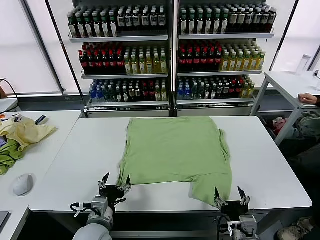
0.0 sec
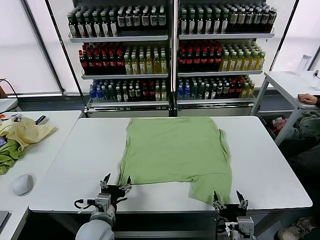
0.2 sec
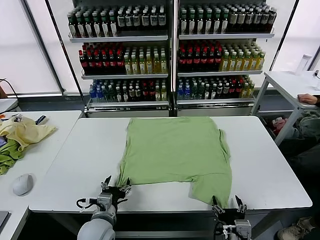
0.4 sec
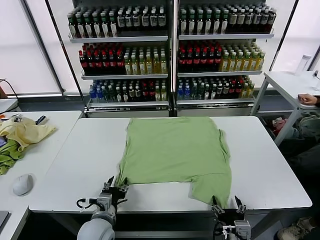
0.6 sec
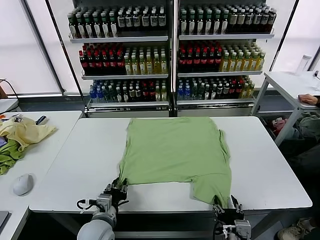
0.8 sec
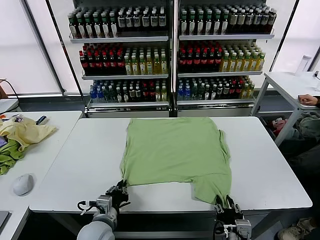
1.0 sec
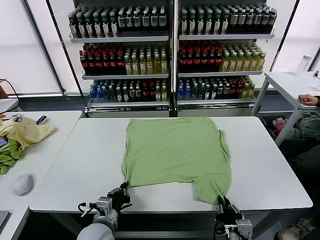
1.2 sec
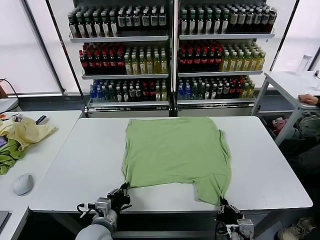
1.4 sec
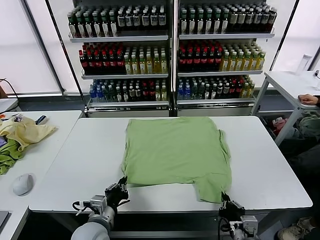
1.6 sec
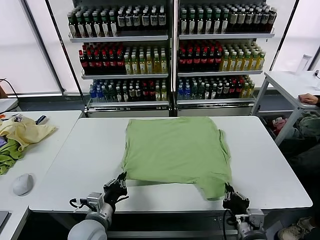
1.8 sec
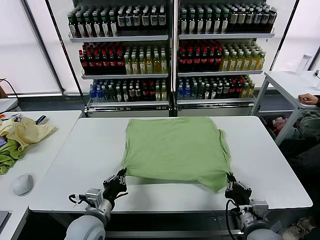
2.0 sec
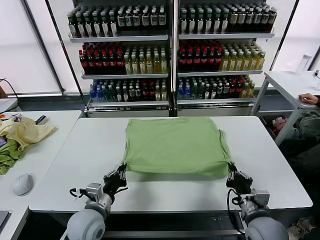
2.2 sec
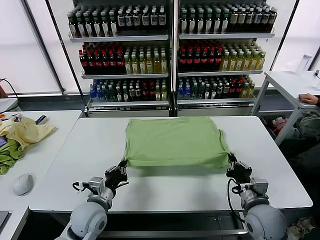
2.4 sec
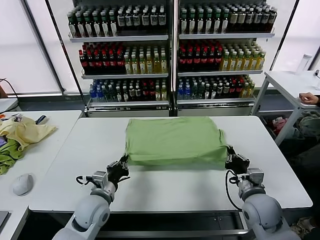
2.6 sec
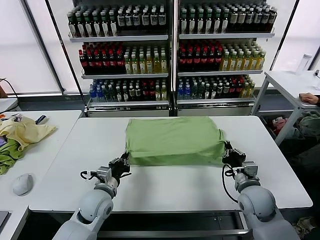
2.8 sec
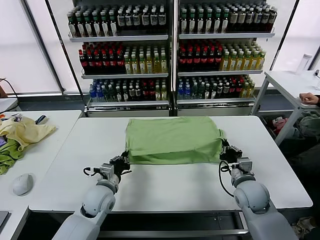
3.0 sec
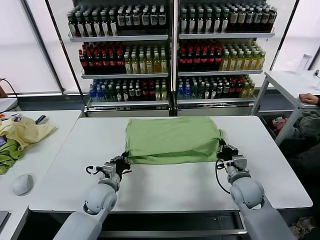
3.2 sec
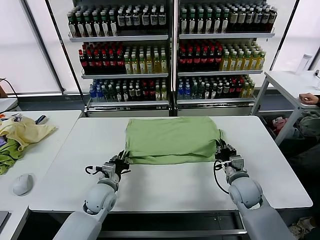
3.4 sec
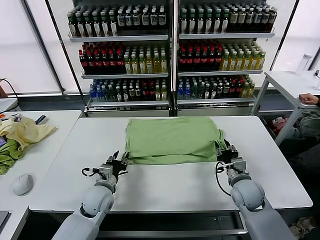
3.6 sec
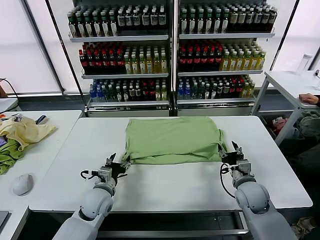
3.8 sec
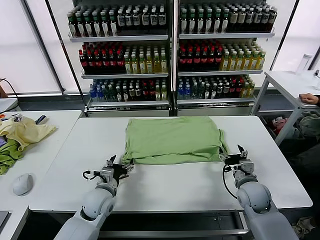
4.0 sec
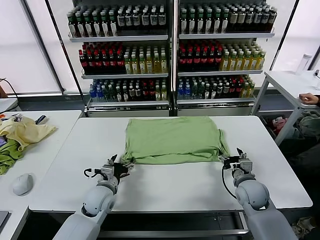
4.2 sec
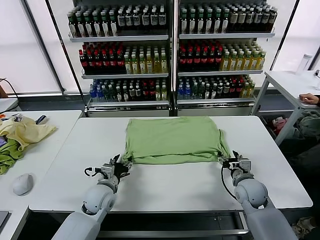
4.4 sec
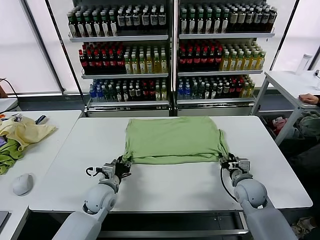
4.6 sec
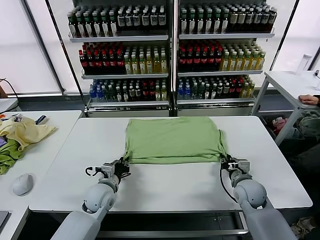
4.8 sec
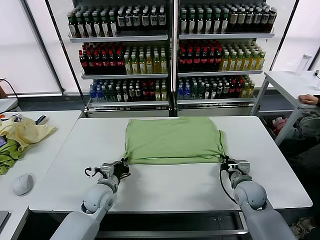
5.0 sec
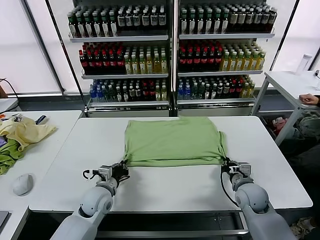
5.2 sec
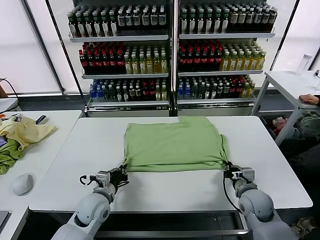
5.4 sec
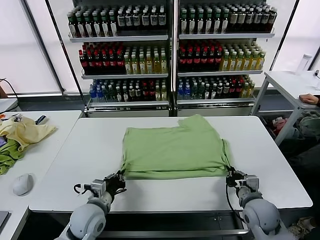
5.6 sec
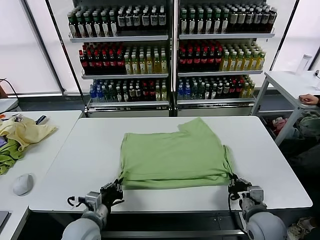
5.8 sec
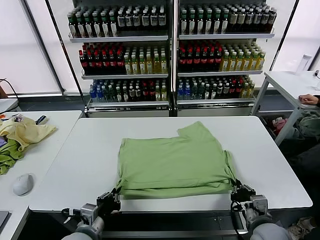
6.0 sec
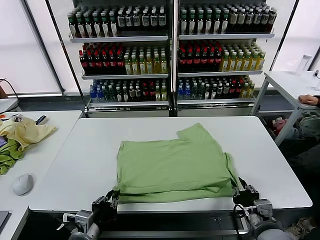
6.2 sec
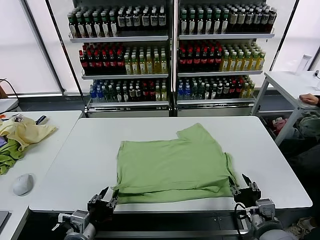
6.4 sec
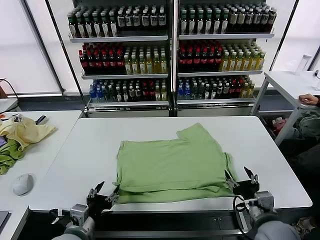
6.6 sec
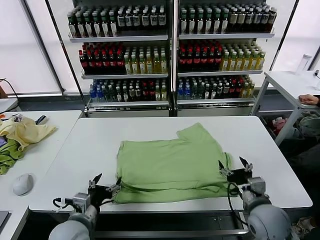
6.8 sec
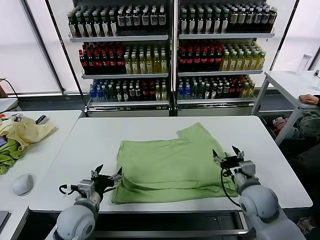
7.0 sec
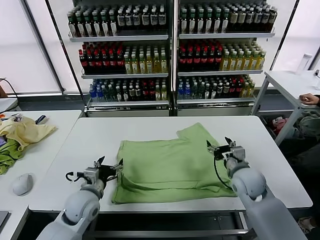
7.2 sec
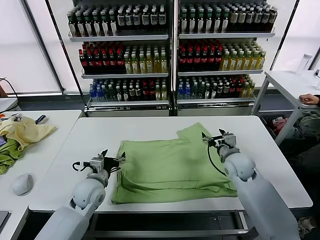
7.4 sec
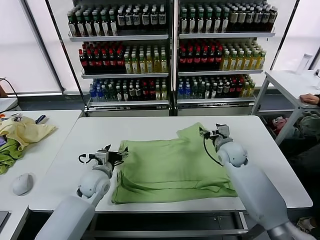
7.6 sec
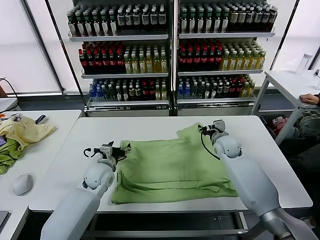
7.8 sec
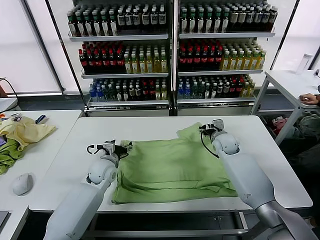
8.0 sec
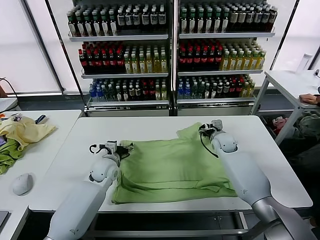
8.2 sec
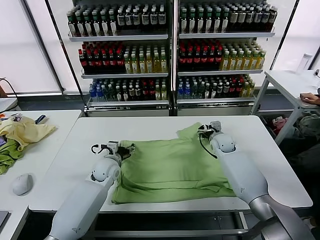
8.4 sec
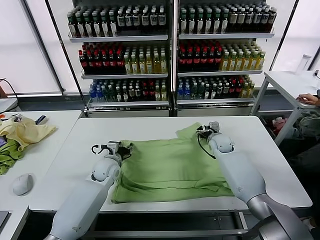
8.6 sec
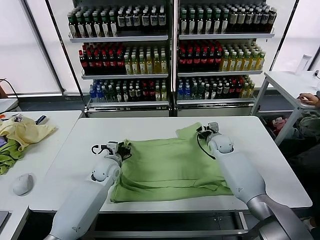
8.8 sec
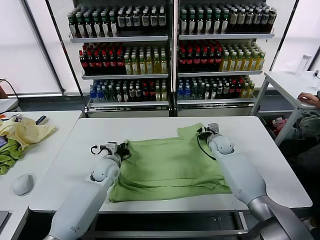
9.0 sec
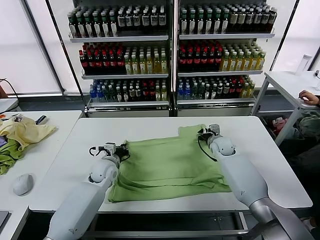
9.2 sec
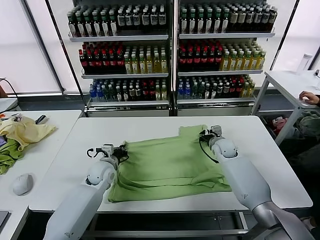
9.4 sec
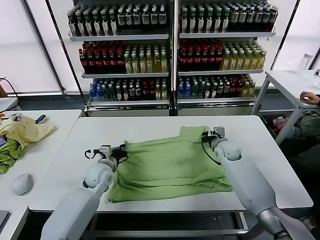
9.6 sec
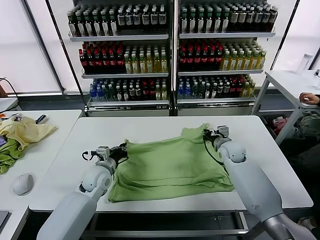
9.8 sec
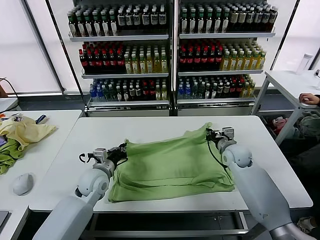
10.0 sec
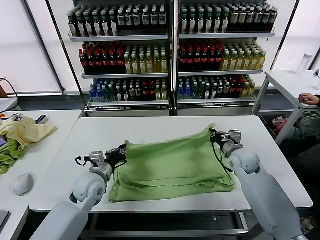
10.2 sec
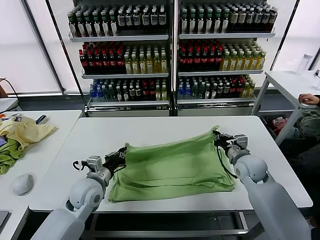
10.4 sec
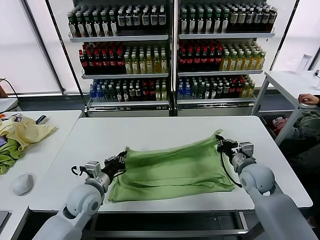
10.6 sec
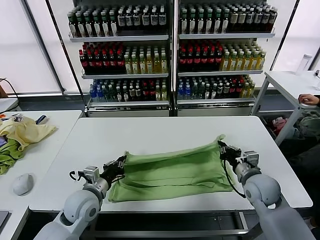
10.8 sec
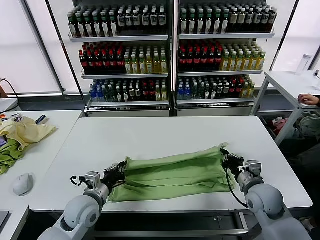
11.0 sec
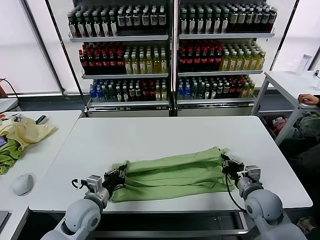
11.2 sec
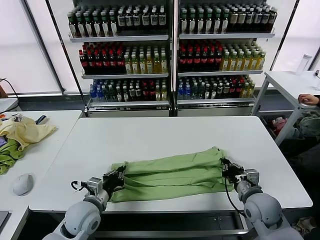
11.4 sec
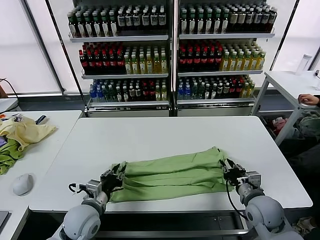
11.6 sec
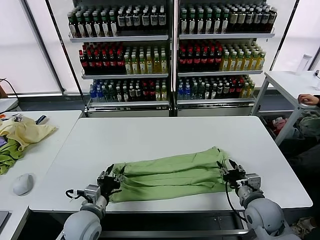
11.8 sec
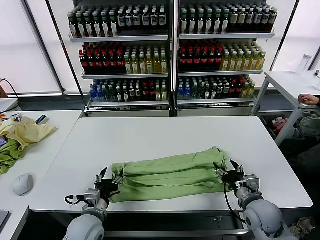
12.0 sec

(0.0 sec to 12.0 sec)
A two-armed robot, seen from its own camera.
Task of the whole recording: fold and organize the clothes.
Step, 0.0 sec - 1.2 sec: use both grippers simultaneously to clamp the lower edge of the clothing fabric.
Step, 1.4 sec - 3.6 sec: use both grippers to drag the lower edge of the fabric forward and fold it over the upper edge.
Step, 3.8 sec - 6.4 sec: Drag the clothes downward with both gripper.
Step, 6.6 sec - 9.2 sec: use both grippers simultaneously to clamp the upper edge of the clothing fabric.
Step, 9.4 sec - 11.8 sec: use both grippers to drag the upper edge of the fabric backward and fold it over the lower edge.
1.6 sec - 3.0 sec: The left gripper is displaced forward by roughly 10 cm; the right gripper shifts approximately 20 cm forward.
3.0 sec - 4.4 sec: The left gripper opens its fingers; the right gripper opens up.
4.4 sec - 6.0 sec: The grippers both shift backward by some 15 cm. The left gripper closes.
6.0 sec - 7.6 sec: The grippers both shift forward by roughly 25 cm. The right gripper opens; the left gripper opens.
7.6 sec - 9.0 sec: The right gripper shifts about 5 cm forward and downward, and closes; the left gripper is displaced forward by approximately 5 cm, and closes its fingers.
9.0 sec - 10.4 sec: The grippers both shift backward by approximately 15 cm.
10.4 sec - 12.0 sec: The two grippers go roughly 10 cm backward. The left gripper opens. Meanwhile the right gripper opens up.

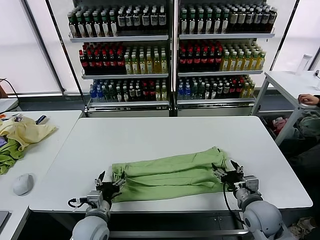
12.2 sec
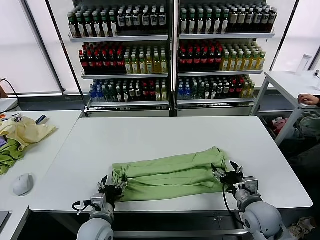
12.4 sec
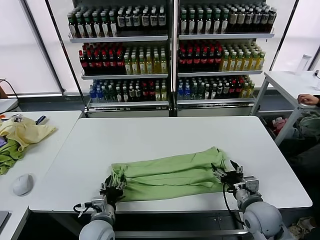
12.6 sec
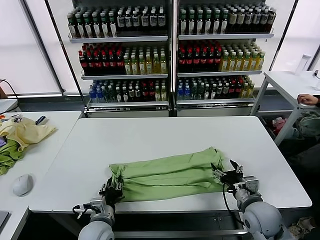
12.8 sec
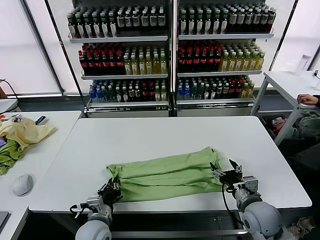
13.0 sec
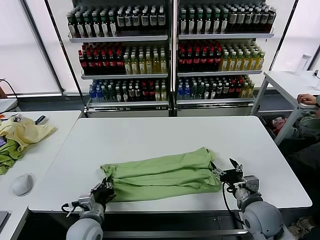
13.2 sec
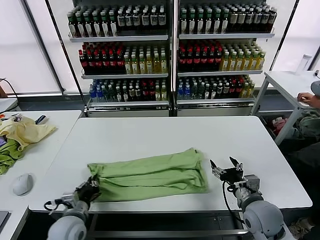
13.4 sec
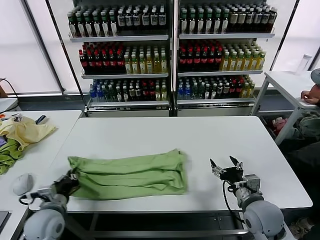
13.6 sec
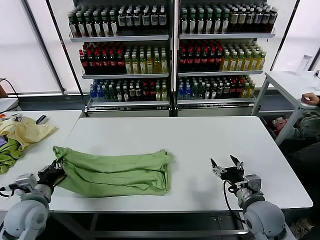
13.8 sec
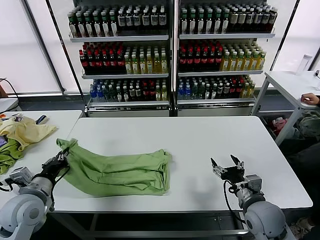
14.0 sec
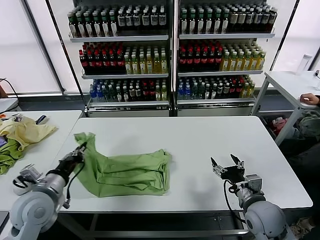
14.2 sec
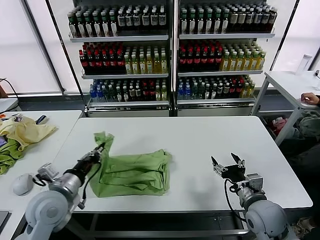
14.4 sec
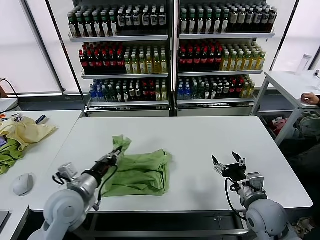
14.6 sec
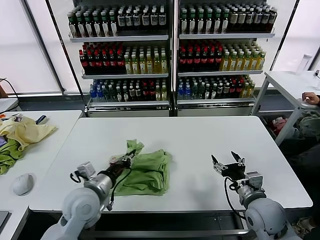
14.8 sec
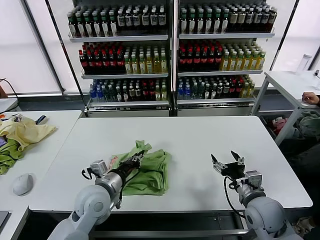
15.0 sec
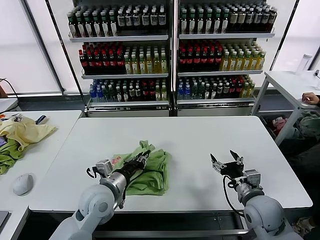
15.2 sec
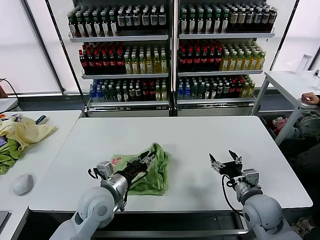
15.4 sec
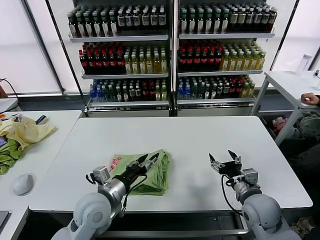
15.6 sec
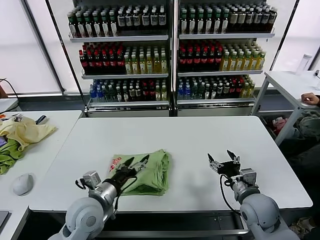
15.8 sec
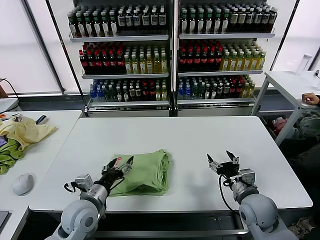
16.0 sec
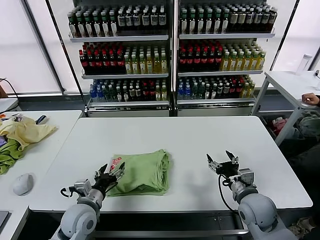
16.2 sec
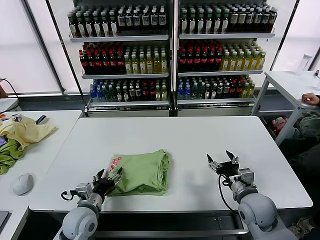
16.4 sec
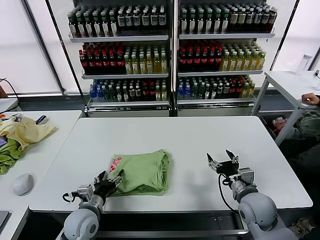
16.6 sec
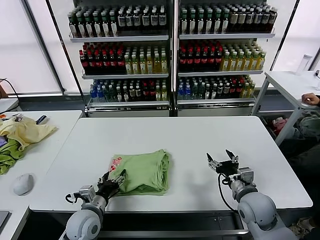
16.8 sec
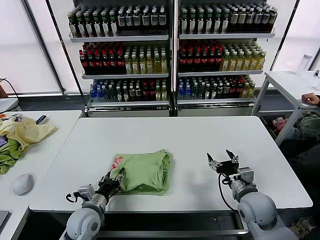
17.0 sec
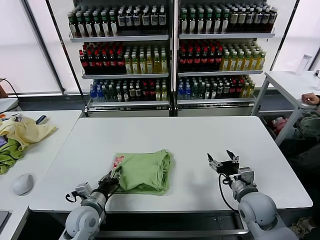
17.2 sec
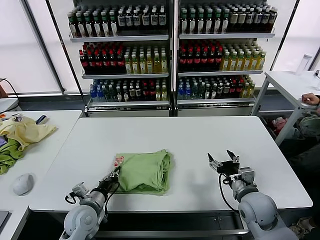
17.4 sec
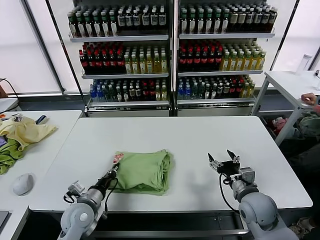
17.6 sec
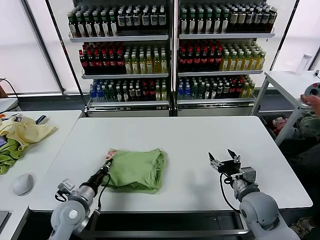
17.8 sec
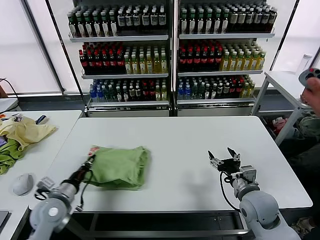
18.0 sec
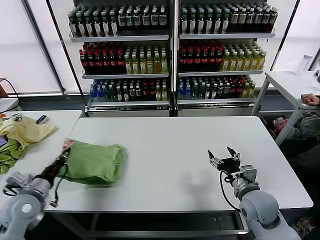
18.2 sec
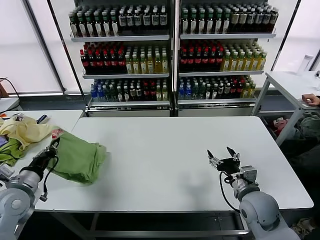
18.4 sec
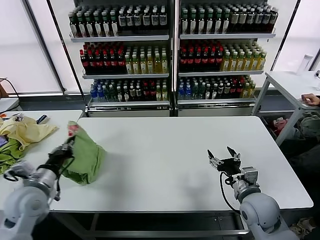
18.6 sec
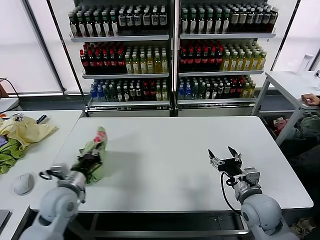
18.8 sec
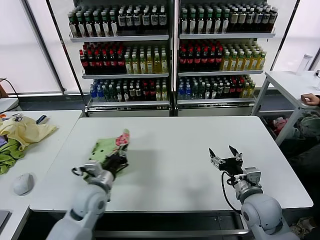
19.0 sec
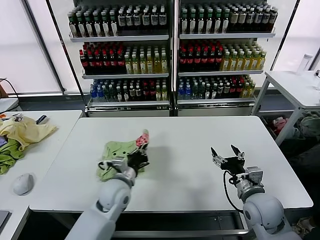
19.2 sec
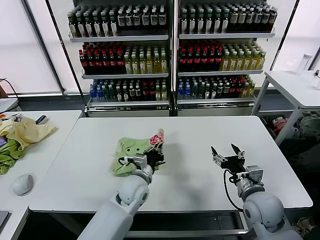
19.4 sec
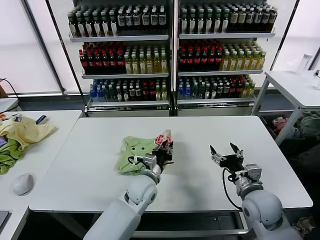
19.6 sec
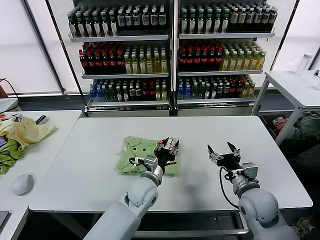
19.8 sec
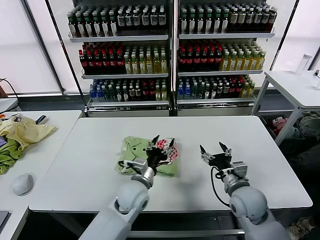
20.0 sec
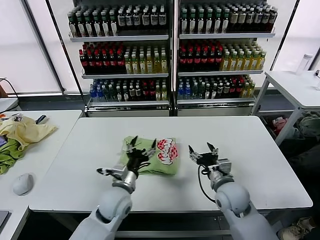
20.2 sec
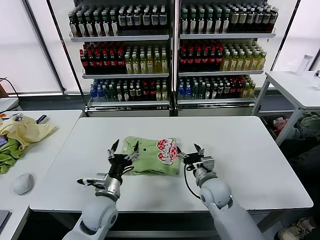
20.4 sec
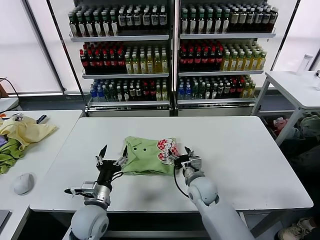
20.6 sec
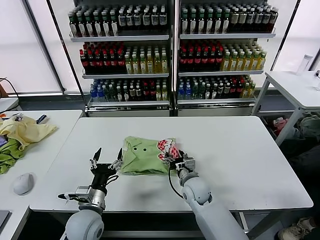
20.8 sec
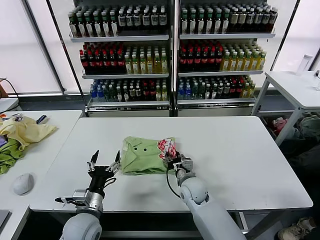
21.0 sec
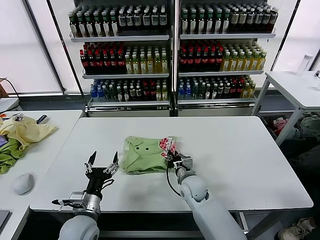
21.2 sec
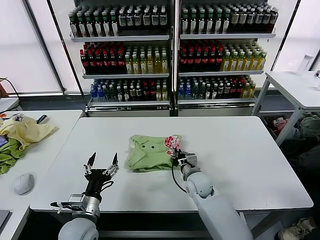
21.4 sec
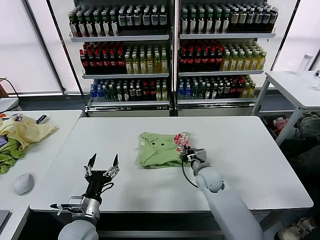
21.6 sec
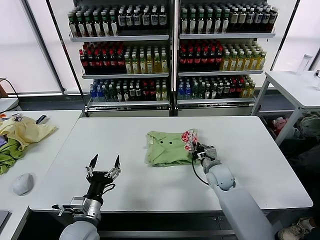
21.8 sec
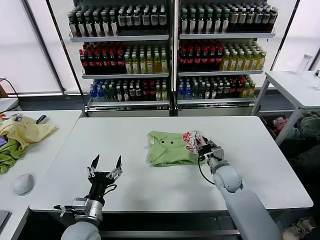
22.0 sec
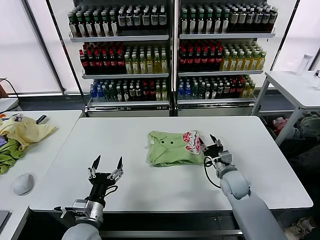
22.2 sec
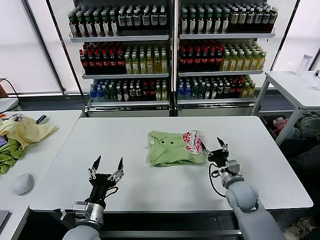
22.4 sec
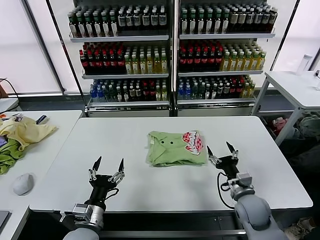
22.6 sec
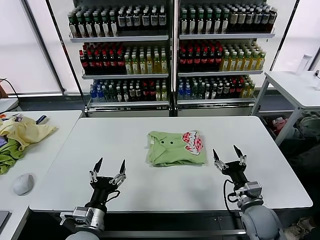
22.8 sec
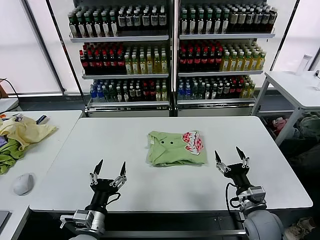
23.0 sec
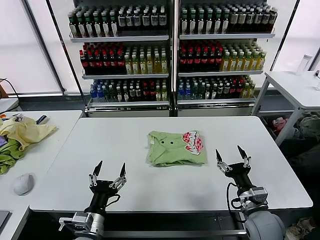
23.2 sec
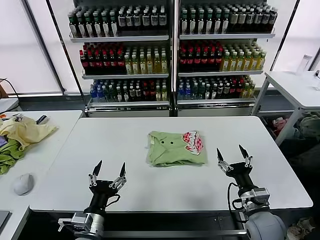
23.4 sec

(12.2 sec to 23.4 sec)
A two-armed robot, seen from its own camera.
Task of the whole recording: fold and organize the clothes.
Step, 12.2 sec - 13.0 sec: use the left gripper to clamp the left edge of the fabric.
Step, 13.2 sec - 15.4 sec: use the left gripper to drag the left edge of the fabric to the left and folds it over the right edge.
Step, 15.6 sec - 19.6 sec: Flip the folded clothes over with left gripper.
Step, 20.0 sec - 22.2 sec: Drag the clothes to the center of the table.
12.2 sec - 13.8 sec: The left gripper is displaced to the left and upward by about 20 cm, and closes its fingers.
13.8 sec - 15.4 sec: The left gripper moves to the right, roughly 20 cm, and opens up.
15.4 sec - 17.0 sec: The left gripper moves downward and to the left, roughly 10 cm, and opens and closes again.
17.0 sec - 18.6 sec: The left gripper shifts roughly 20 cm to the left and upward, and closes its fingers.
18.6 sec - 20.2 sec: The left gripper goes approximately 25 cm to the right, and opens, while the right gripper moves to the left, about 5 cm.
20.2 sec - 21.8 sec: The left gripper moves backward and to the left, some 15 cm. The right gripper is displaced forward and downward by about 10 cm, moves roughly 10 cm to the left and comes back, and closes up.
21.8 sec - 23.4 sec: The left gripper moves roughly 5 cm. The right gripper travels backward and to the right by some 20 cm, and opens up.
